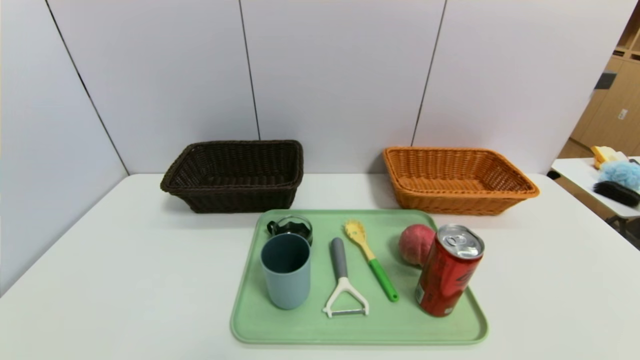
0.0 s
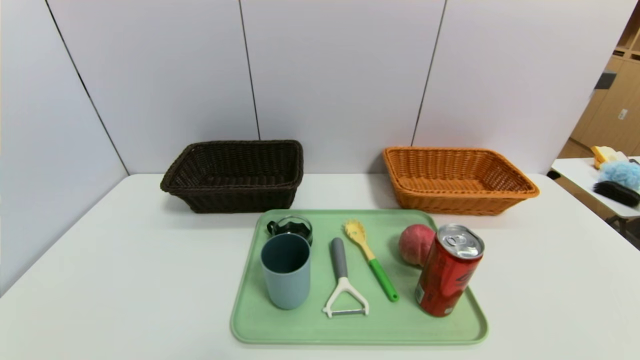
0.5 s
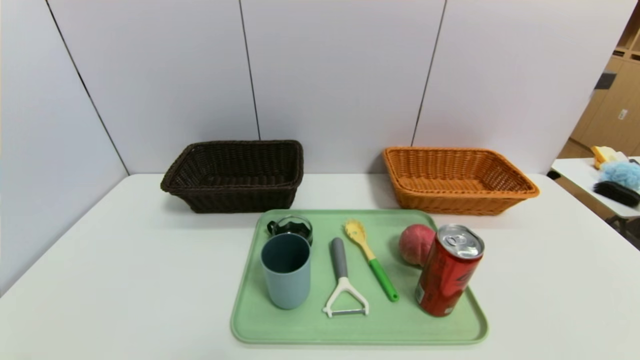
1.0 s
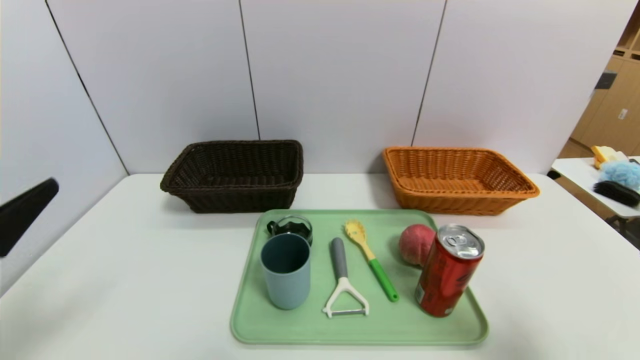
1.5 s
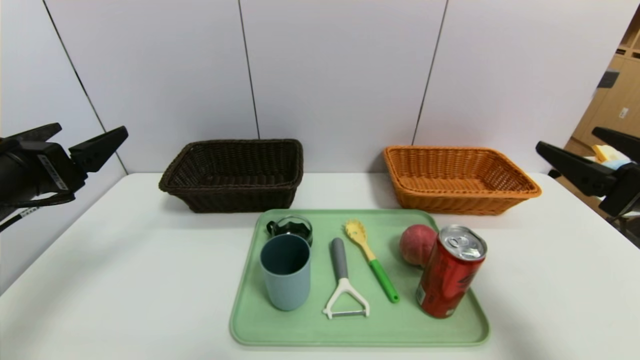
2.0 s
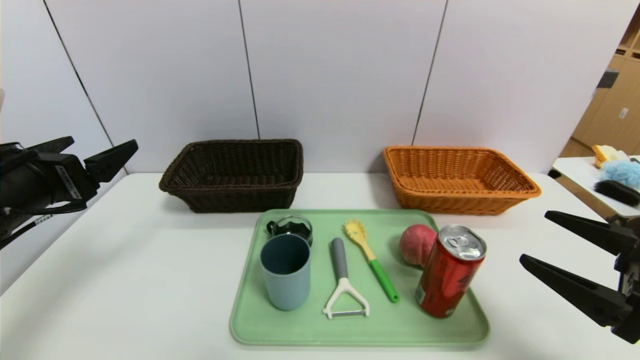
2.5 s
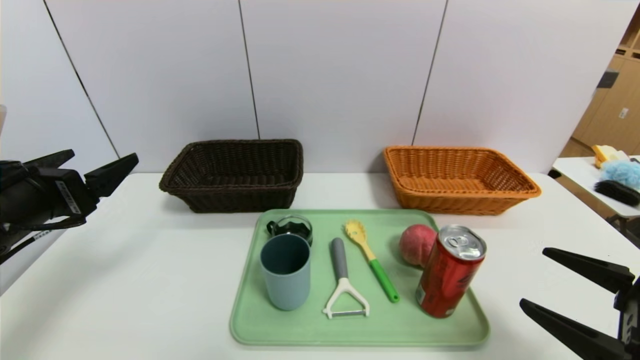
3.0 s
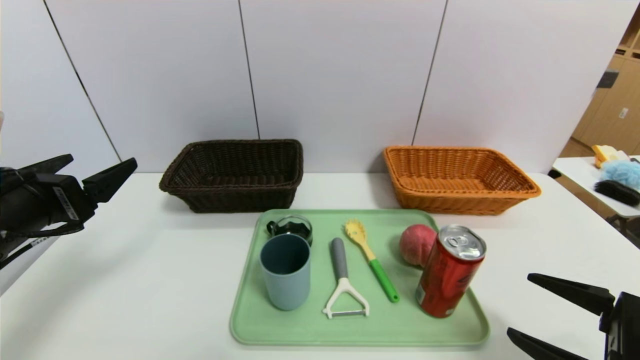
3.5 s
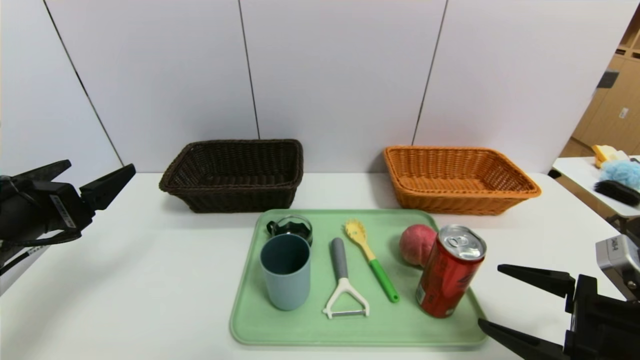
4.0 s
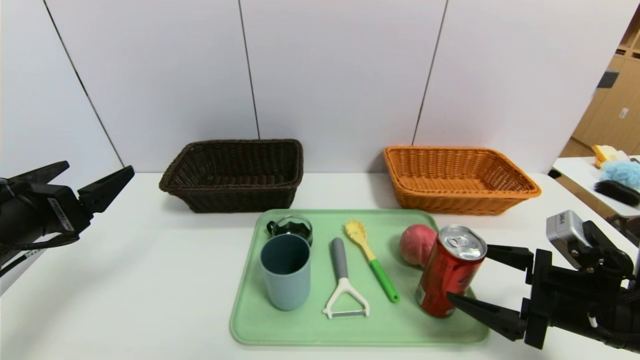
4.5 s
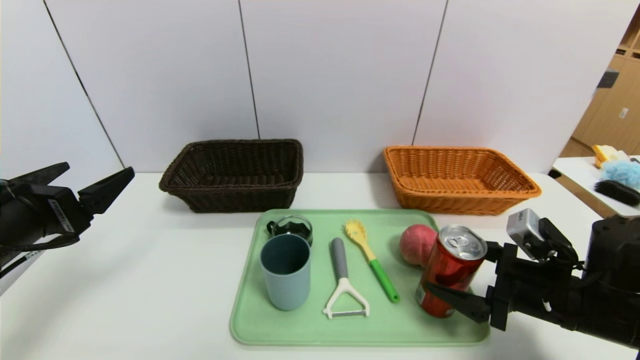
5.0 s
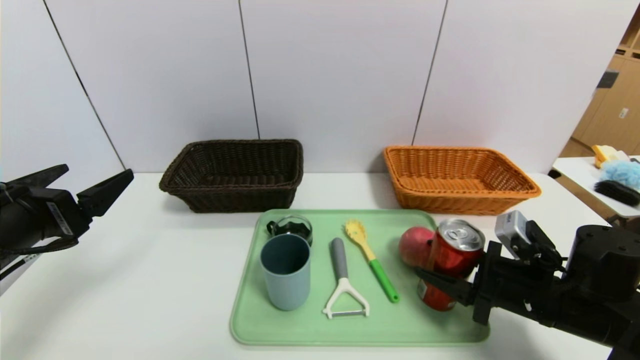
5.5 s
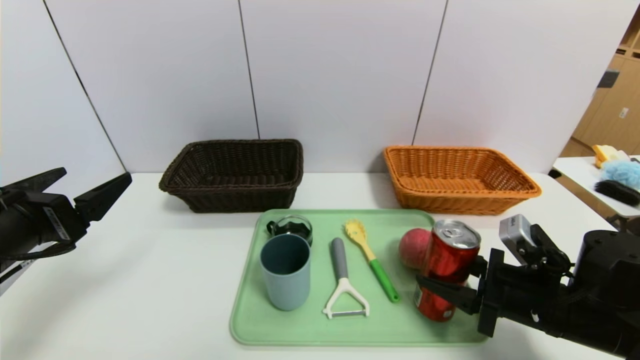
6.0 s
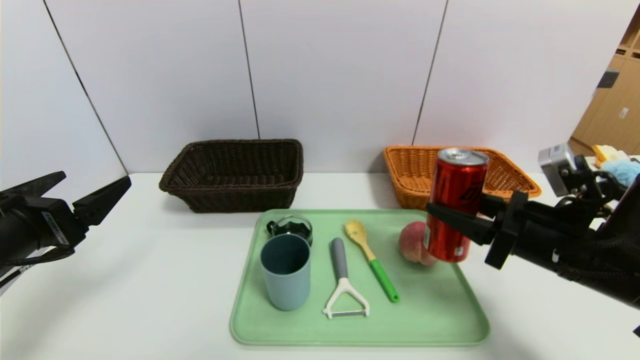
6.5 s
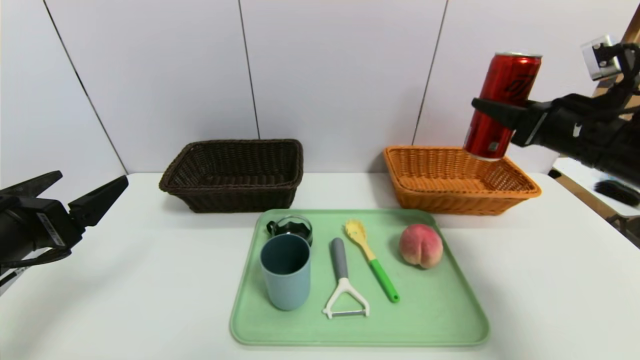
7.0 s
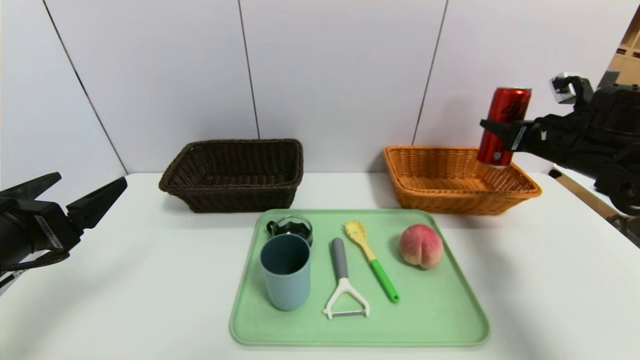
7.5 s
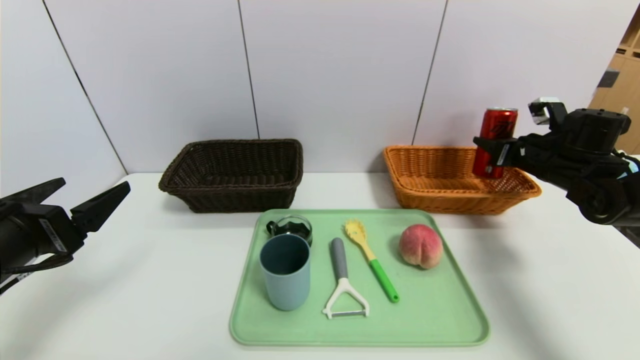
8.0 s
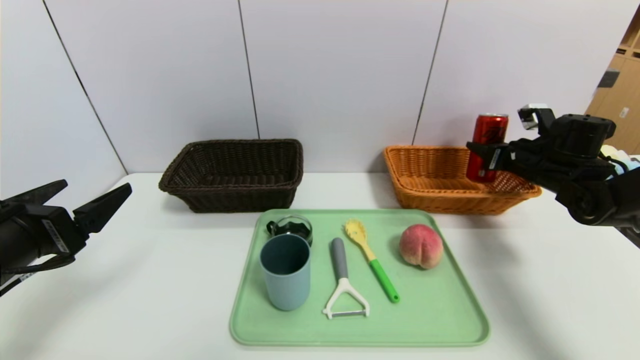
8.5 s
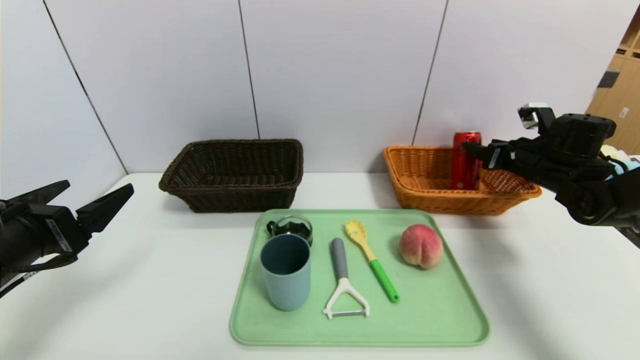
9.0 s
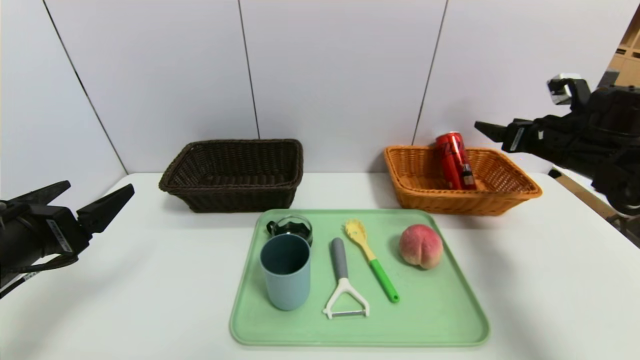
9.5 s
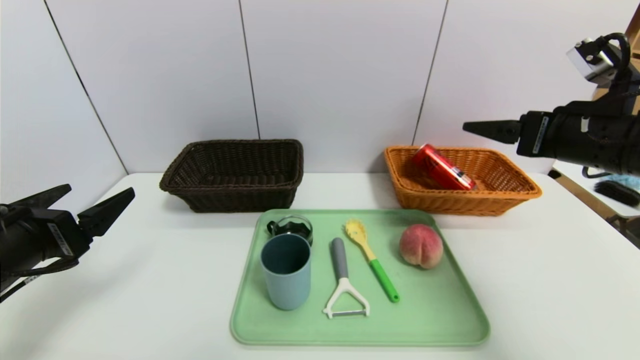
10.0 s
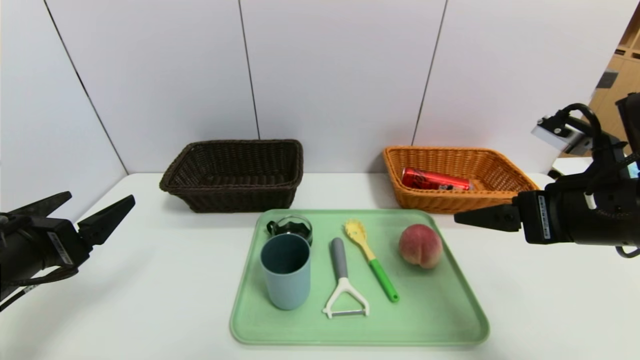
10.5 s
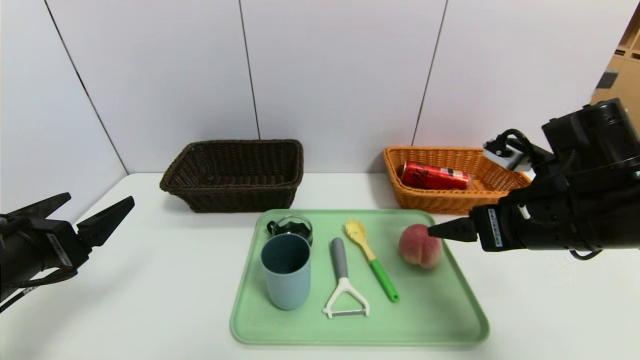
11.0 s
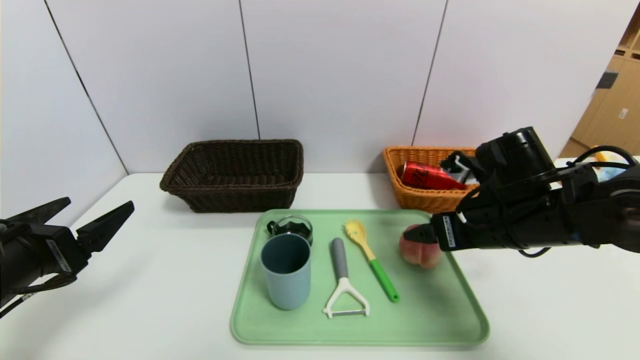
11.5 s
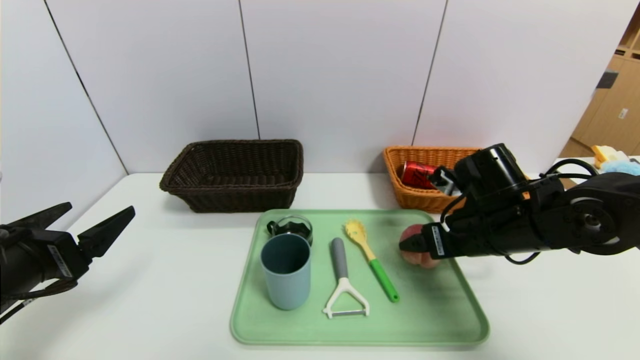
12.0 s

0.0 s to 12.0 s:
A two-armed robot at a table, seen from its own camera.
Task of the whole recording: place the food in the right basket with the right gripper, and place the non food items in the left basket with the left gripper.
Step, 0.0 to 9.5 s: Grasp the canned cola and put it in the right basket.
0.0 to 2.0 s: Both grippers move forward and upward, approximately 25 cm.
2.0 to 4.0 s: The right gripper moves downward, approximately 10 cm.
4.0 to 6.0 s: The right gripper goes some 5 cm forward, and closes.
6.0 to 8.0 s: The right gripper moves forward and to the right, approximately 25 cm.
8.0 to 10.0 s: The right gripper heads backward, upward and to the left, covering approximately 20 cm, and opens.
10.0 to 12.0 s: The right gripper moves downward and to the left, about 15 cm.

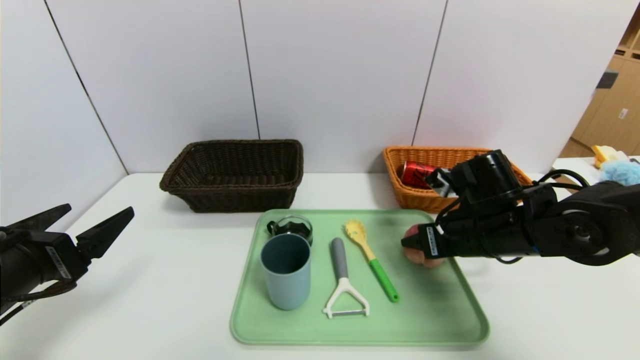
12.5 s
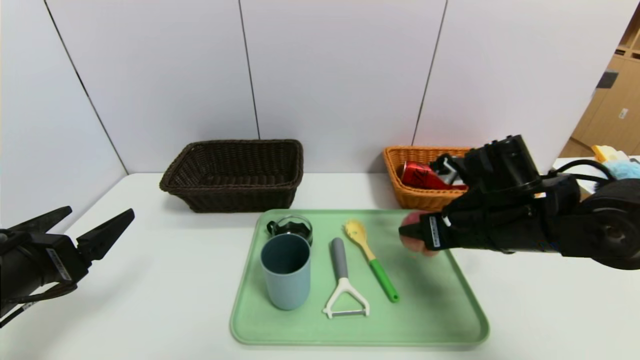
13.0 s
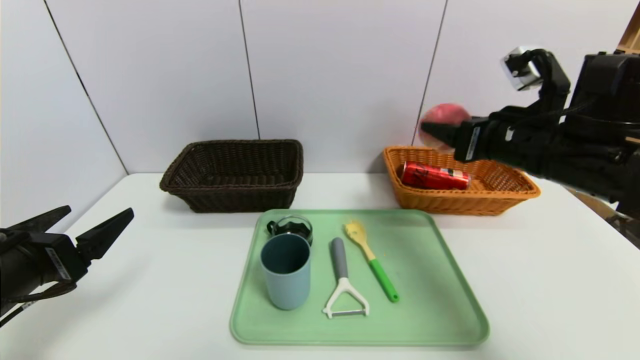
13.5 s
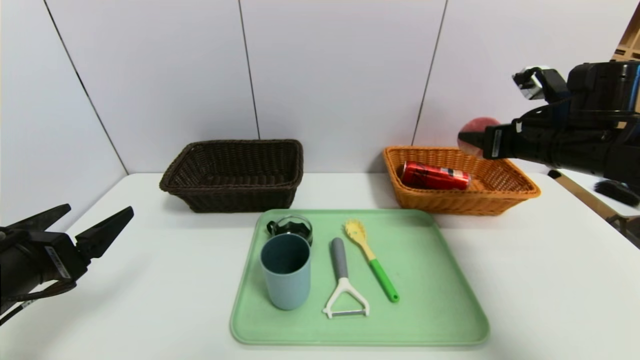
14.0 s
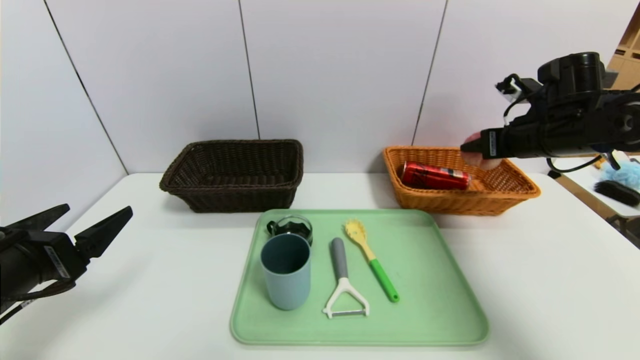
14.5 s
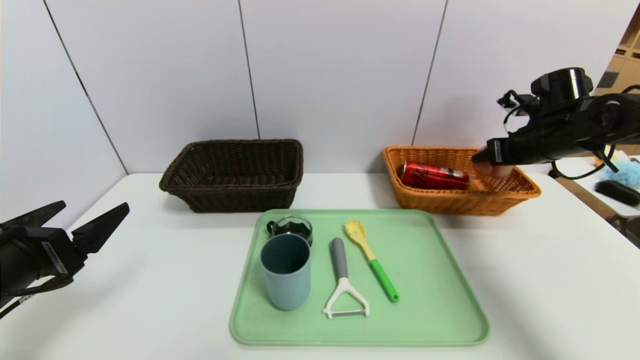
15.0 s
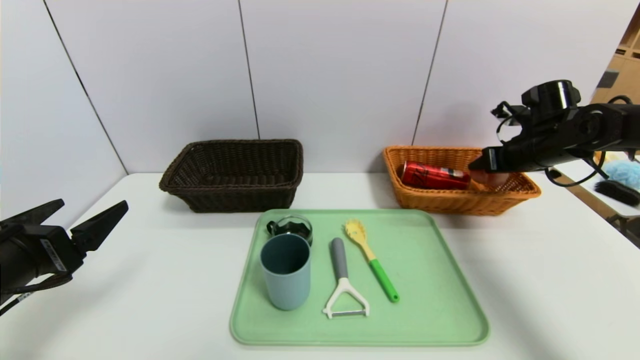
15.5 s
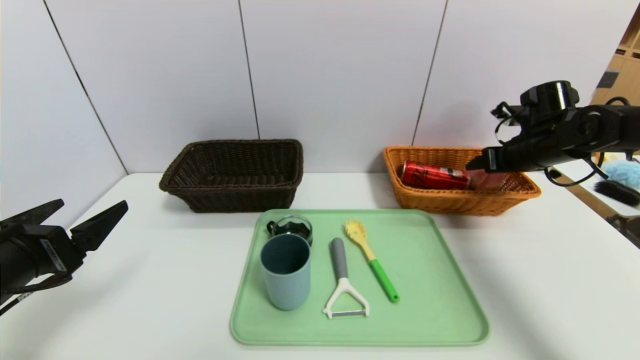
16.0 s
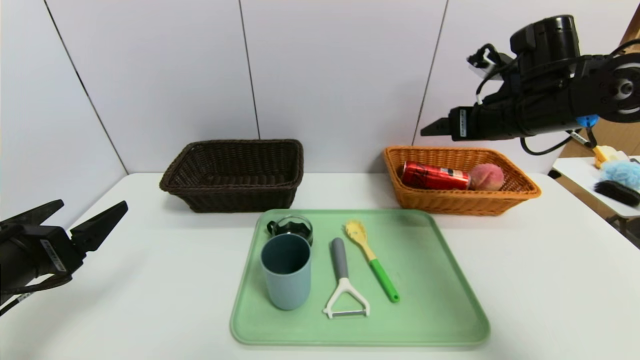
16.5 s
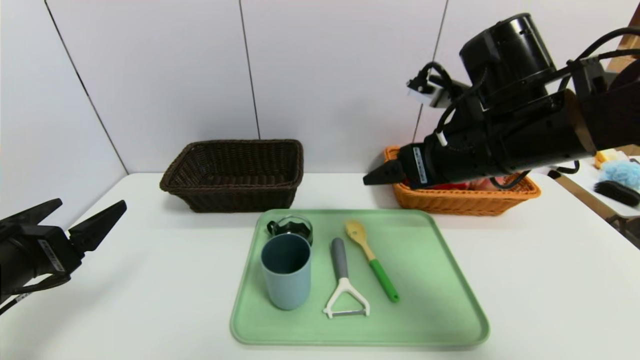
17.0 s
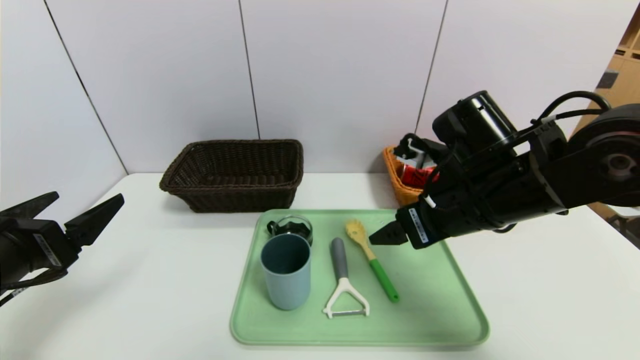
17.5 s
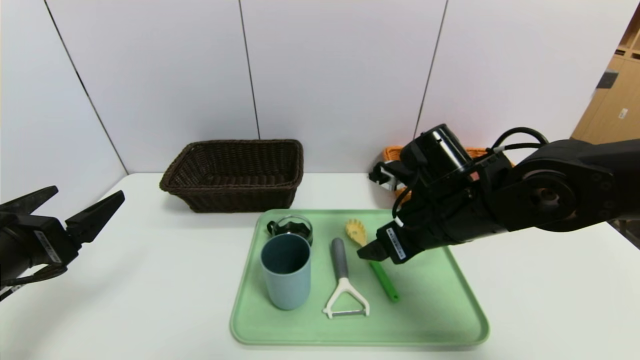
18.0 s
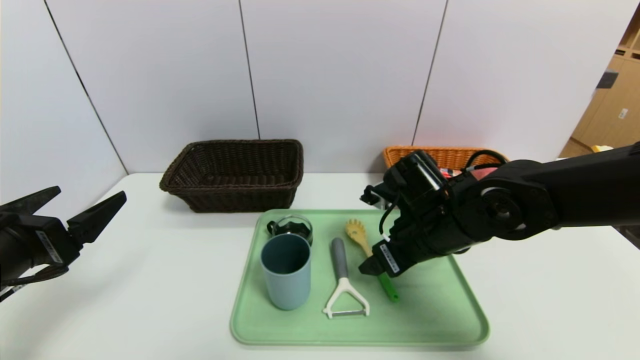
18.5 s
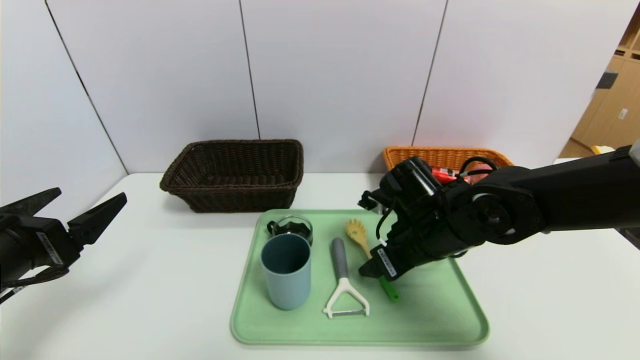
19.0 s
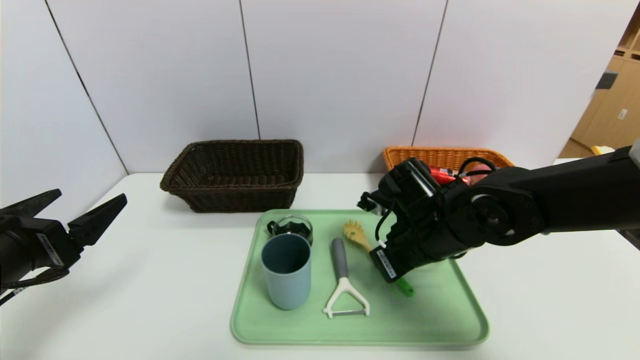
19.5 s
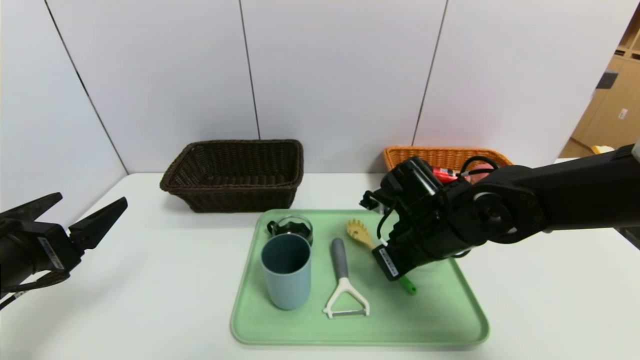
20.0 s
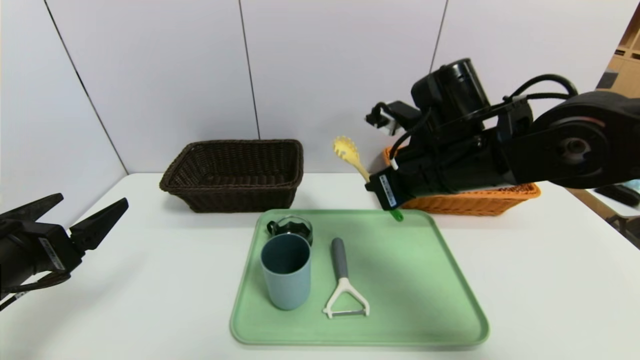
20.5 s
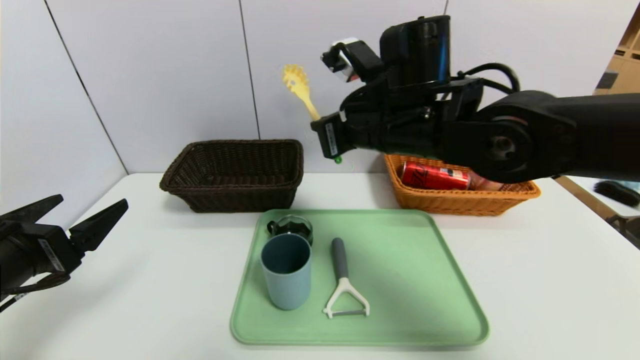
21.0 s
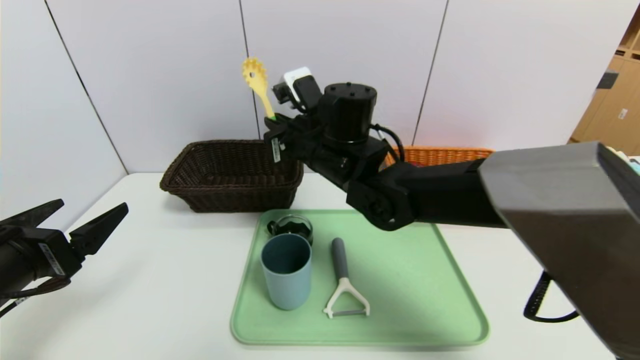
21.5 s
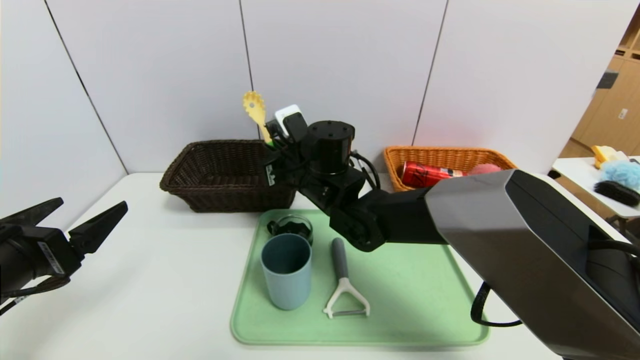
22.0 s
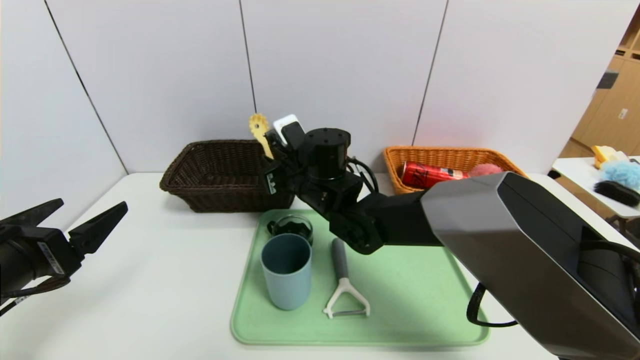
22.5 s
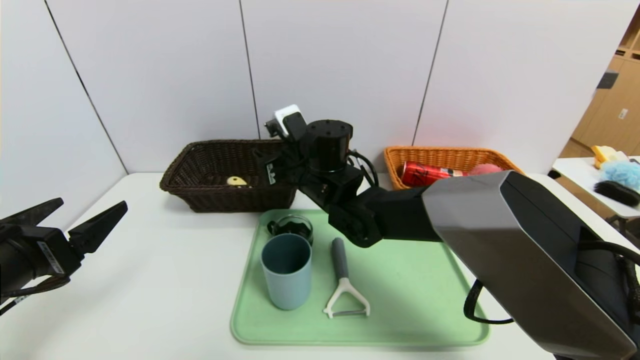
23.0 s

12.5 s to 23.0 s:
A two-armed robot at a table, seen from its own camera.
Task of the whole recording: place the food in the right basket with the right gripper, and place the non food items in the left basket with the left gripper.
Step, 12.5 to 15.5 s: Grasp the peach and put it in the right basket.
12.5 to 14.5 s: The right gripper travels to the right, upward and forward by roughly 15 cm.
14.5 to 16.5 s: The right gripper goes about 5 cm to the left, and opens its fingers.
16.5 to 19.0 s: The right gripper moves downward, to the left and backward, about 20 cm.
19.0 to 21.0 s: The right gripper heads upward, covering some 15 cm, and closes up.
21.0 to 23.0 s: The right gripper heads downward, to the left and forward, covering some 15 cm, and opens.
